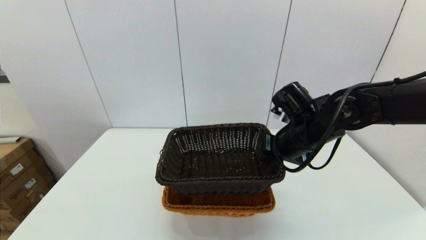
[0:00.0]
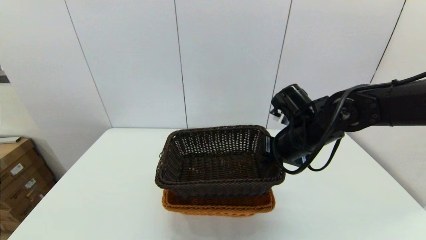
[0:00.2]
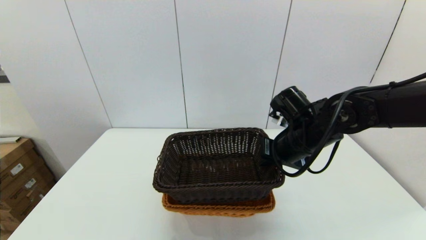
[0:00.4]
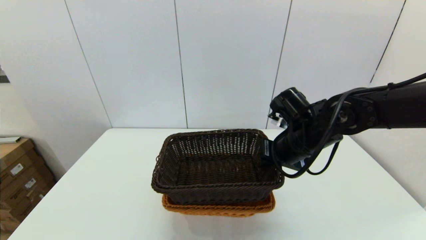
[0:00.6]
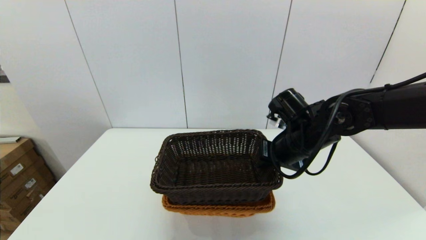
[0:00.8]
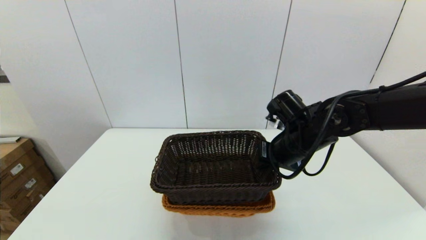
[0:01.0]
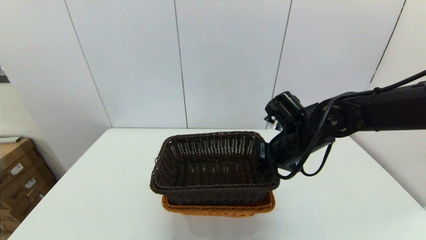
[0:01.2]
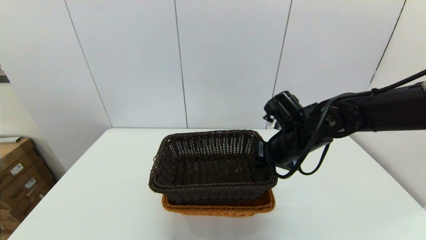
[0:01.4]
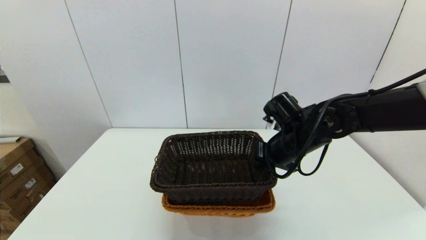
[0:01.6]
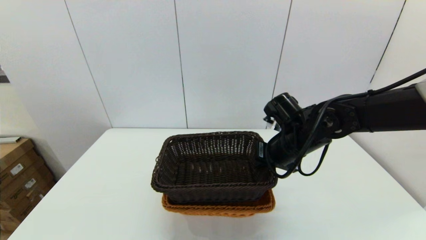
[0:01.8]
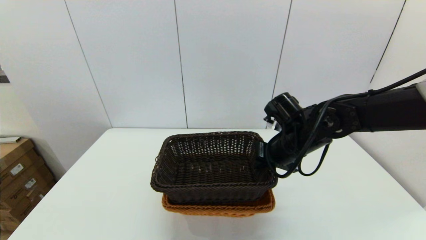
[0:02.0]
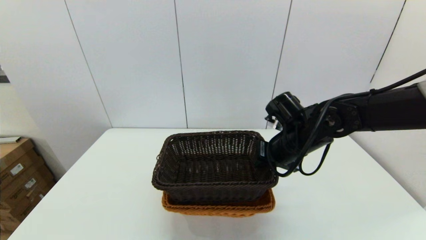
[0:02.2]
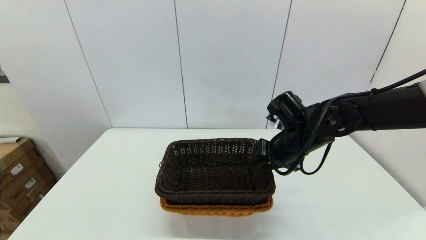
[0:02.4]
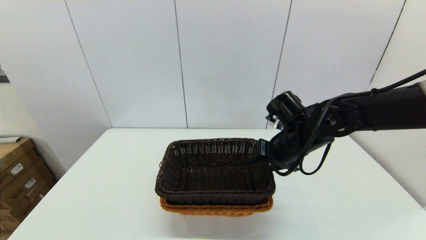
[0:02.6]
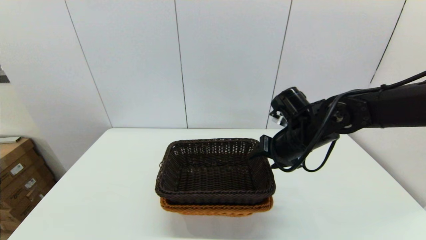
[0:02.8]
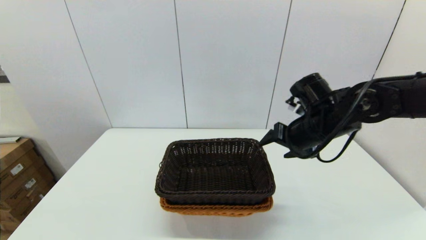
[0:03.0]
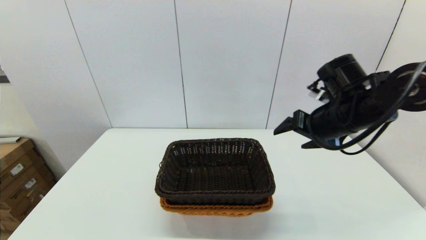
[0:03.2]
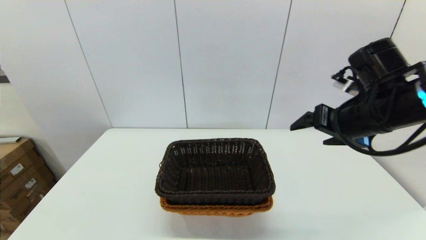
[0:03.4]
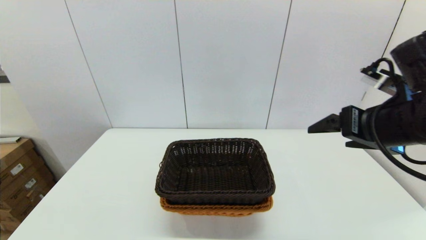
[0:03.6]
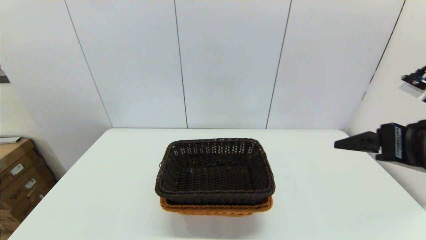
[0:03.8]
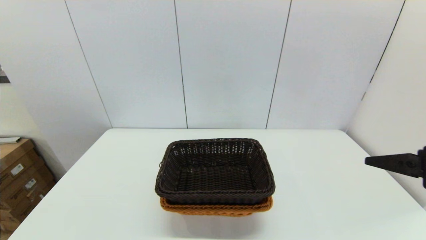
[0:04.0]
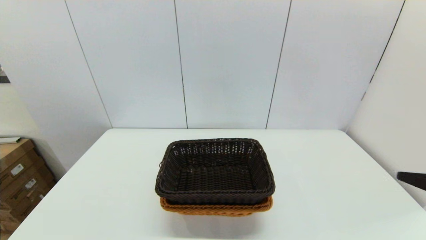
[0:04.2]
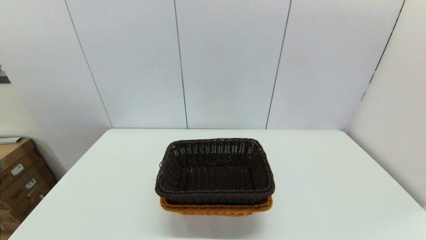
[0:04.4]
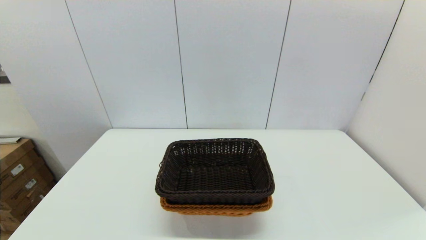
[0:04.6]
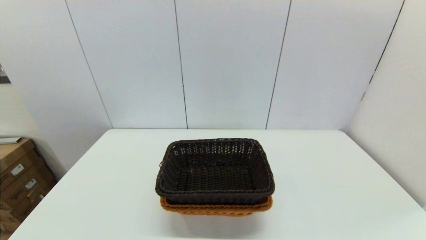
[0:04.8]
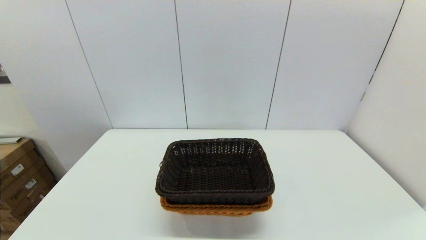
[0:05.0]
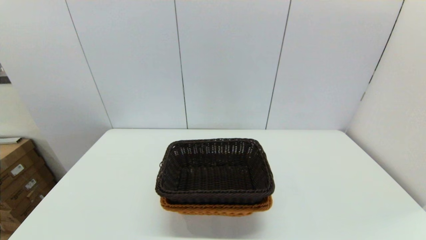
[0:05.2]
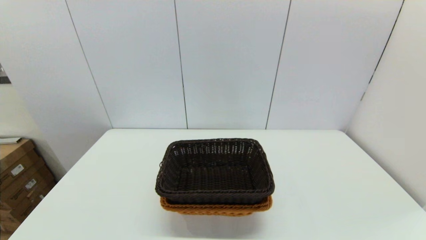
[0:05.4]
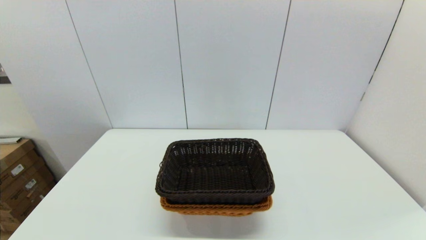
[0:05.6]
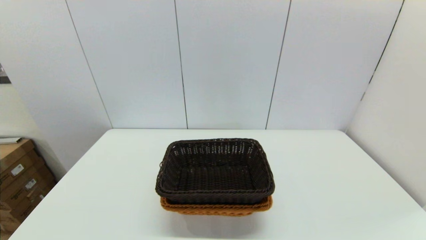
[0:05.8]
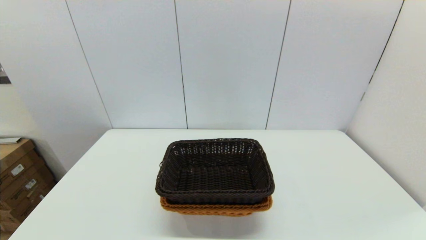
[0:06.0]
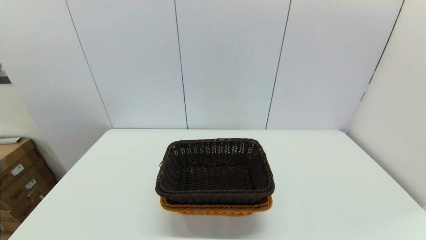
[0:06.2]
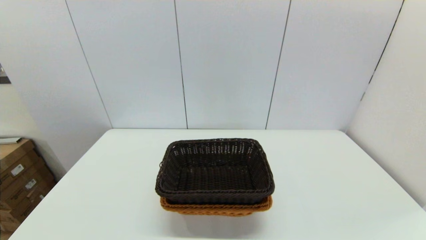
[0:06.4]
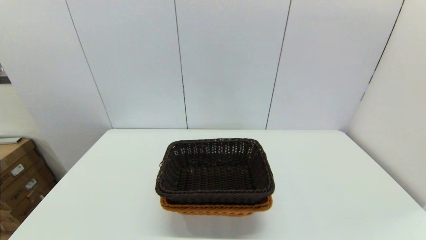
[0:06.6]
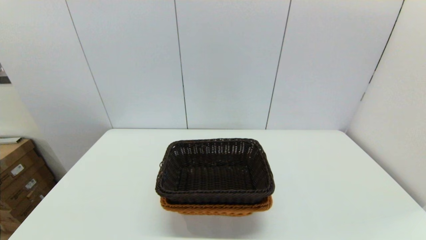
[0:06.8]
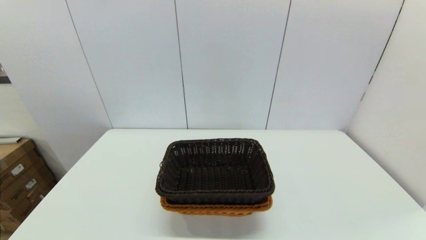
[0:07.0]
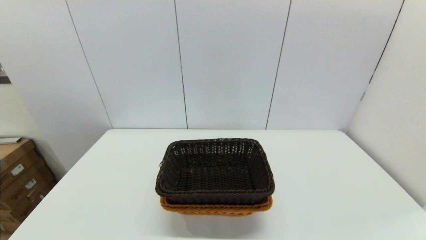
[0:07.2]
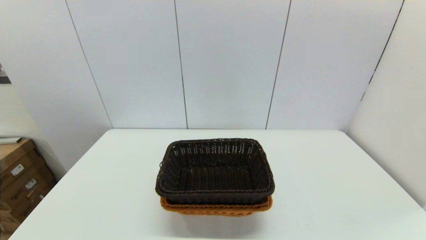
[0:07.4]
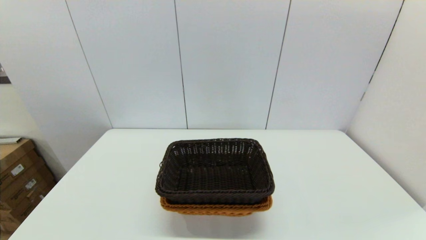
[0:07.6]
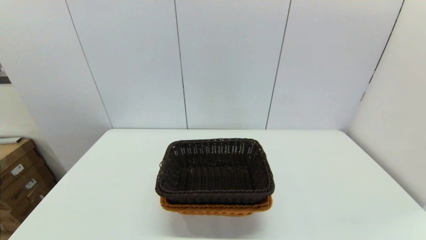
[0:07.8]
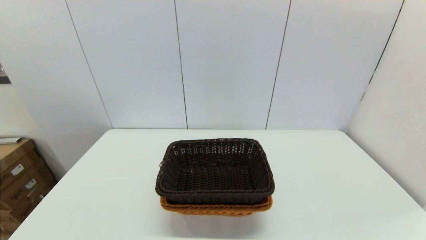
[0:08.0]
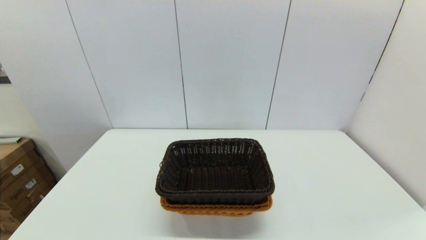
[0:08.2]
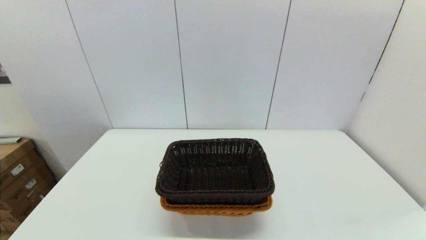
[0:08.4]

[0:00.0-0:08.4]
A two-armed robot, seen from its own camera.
Task of the whole recording: stack a basket on top of another basket.
Step, 0.0 to 3.2 s: Place the dark basket into the light color basket with the right gripper.
0.0 to 1.4 s: The grippers move only a little.
1.4 to 2.8 s: The right gripper opens.
2.8 to 4.2 s: The right gripper travels backward and to the right by approximately 30 cm.

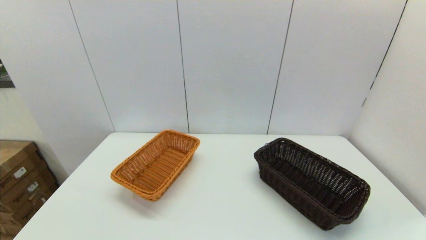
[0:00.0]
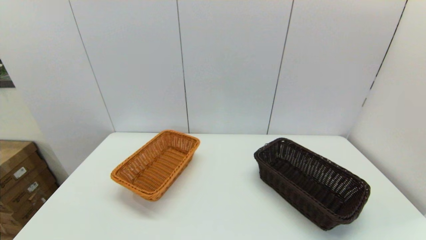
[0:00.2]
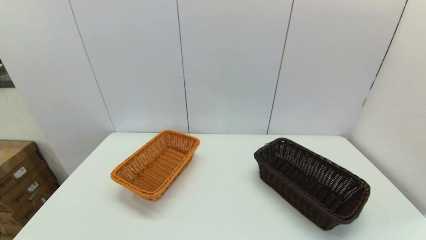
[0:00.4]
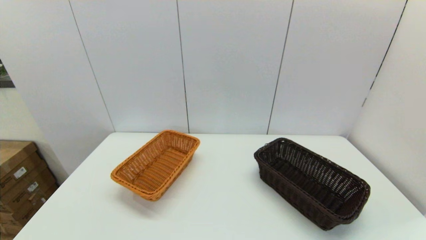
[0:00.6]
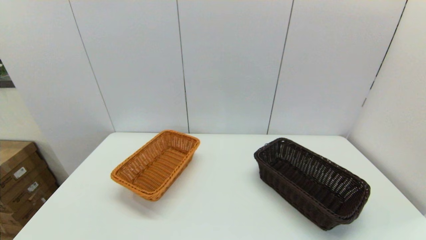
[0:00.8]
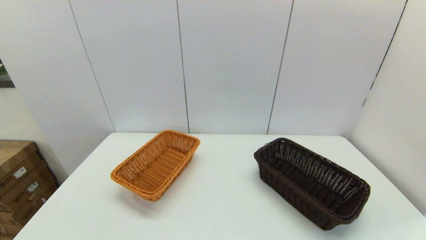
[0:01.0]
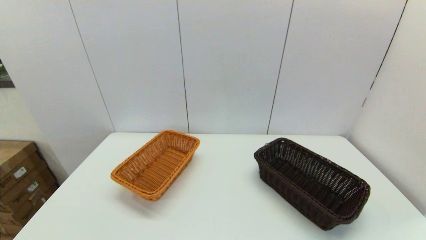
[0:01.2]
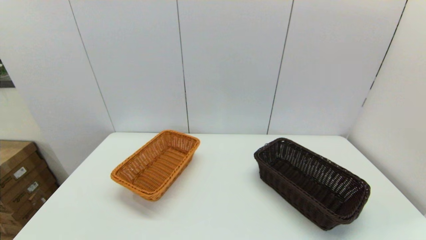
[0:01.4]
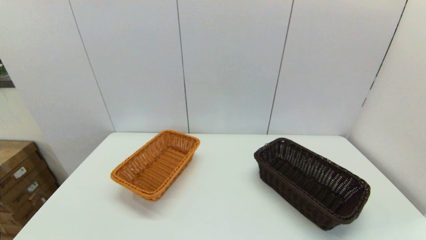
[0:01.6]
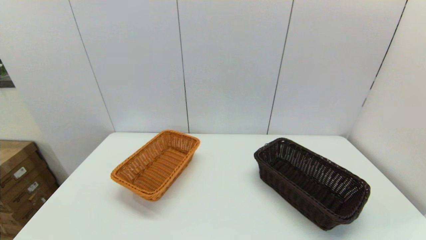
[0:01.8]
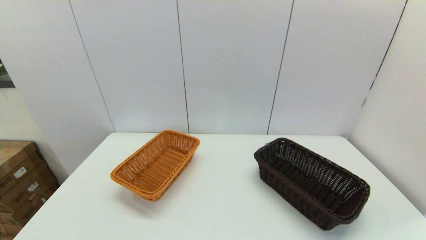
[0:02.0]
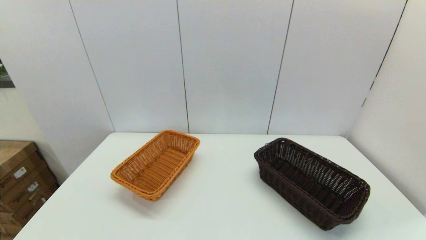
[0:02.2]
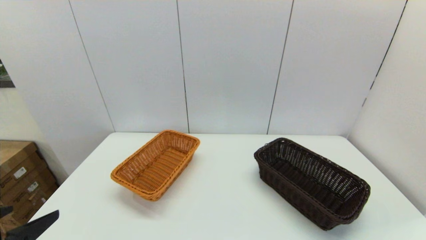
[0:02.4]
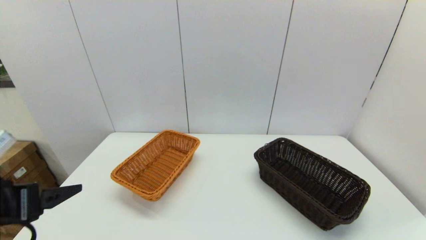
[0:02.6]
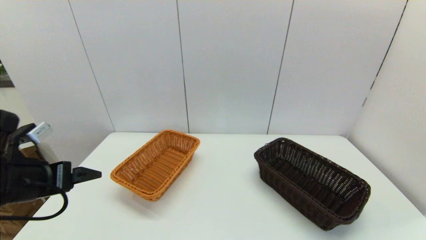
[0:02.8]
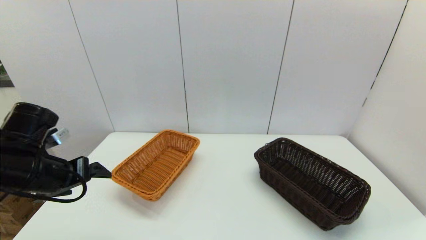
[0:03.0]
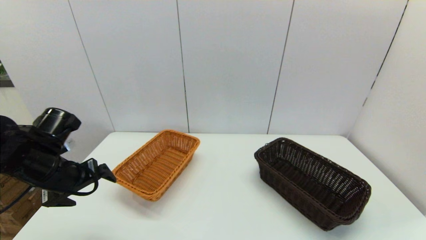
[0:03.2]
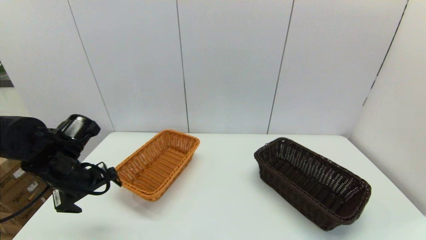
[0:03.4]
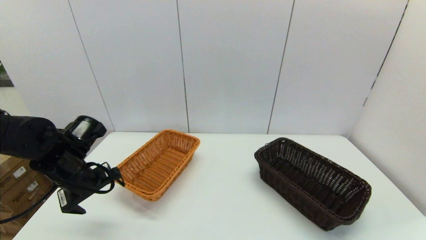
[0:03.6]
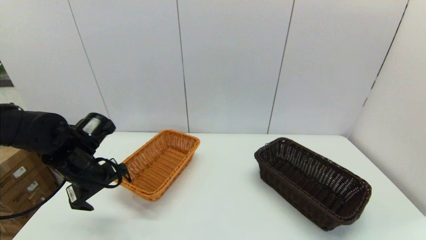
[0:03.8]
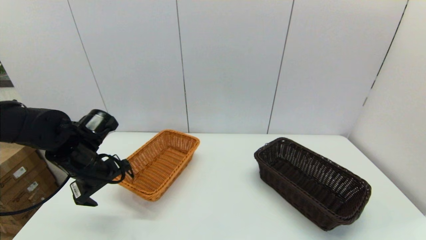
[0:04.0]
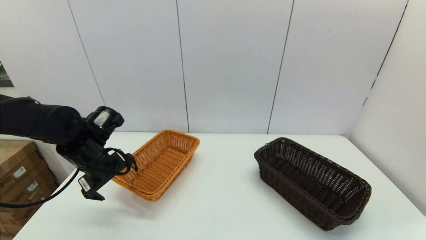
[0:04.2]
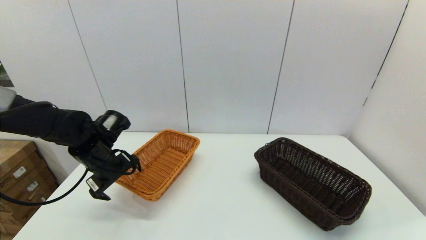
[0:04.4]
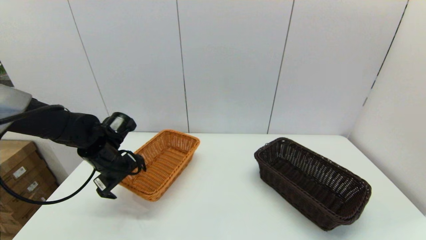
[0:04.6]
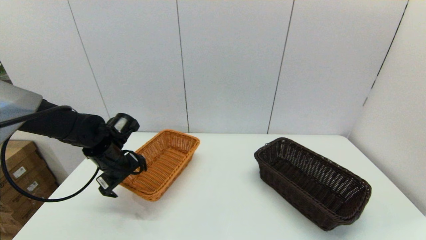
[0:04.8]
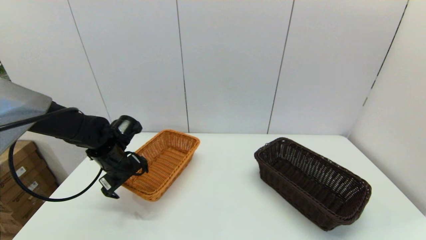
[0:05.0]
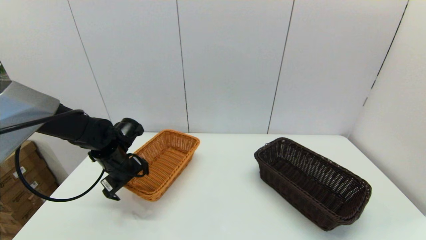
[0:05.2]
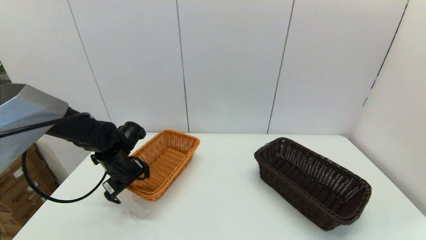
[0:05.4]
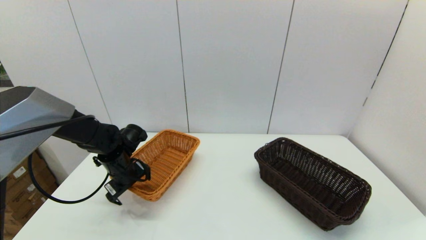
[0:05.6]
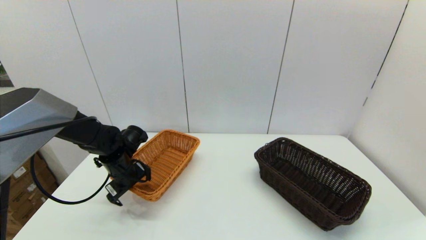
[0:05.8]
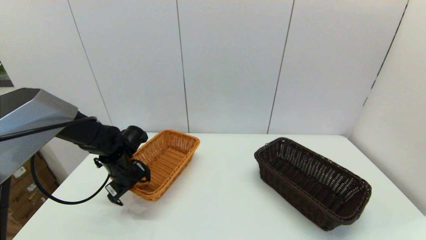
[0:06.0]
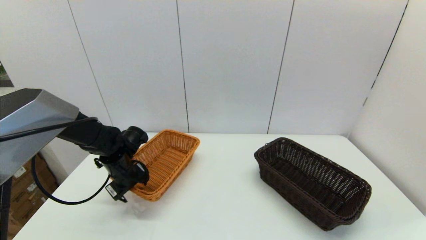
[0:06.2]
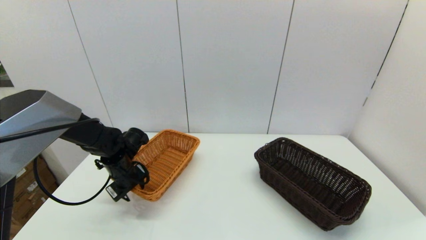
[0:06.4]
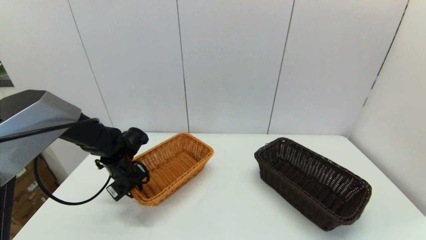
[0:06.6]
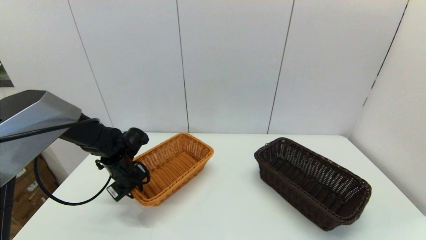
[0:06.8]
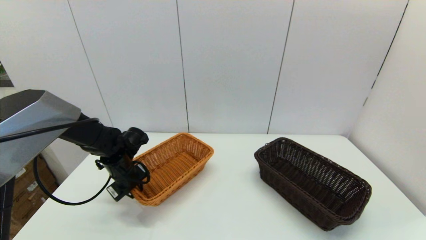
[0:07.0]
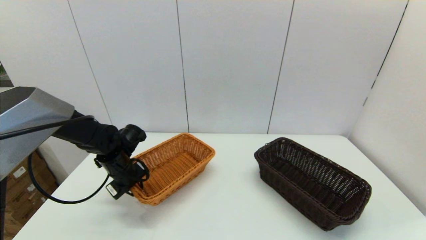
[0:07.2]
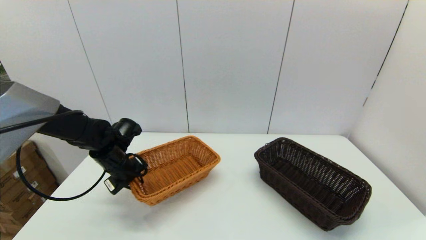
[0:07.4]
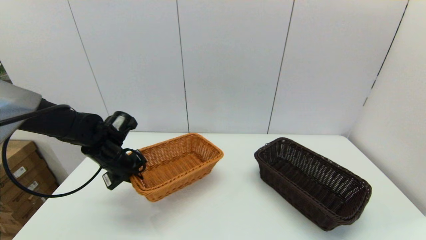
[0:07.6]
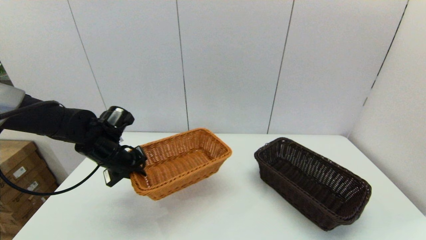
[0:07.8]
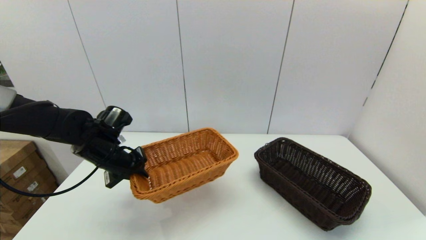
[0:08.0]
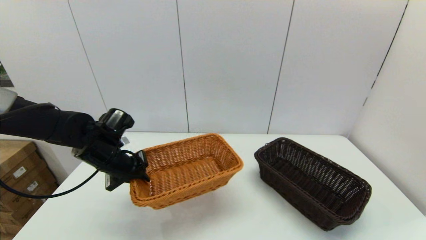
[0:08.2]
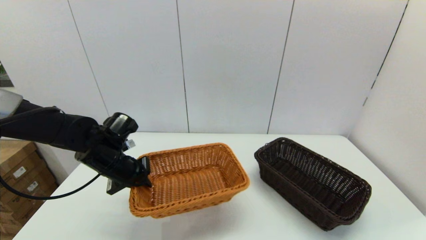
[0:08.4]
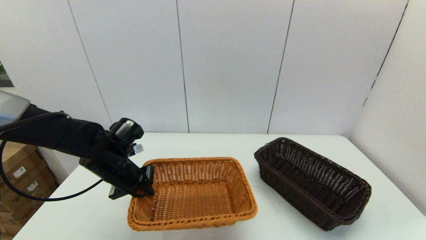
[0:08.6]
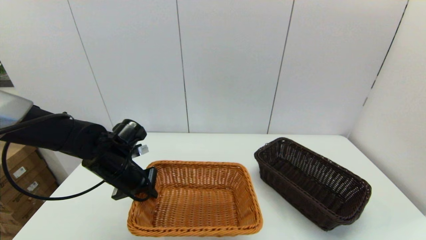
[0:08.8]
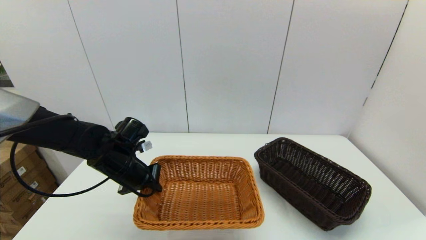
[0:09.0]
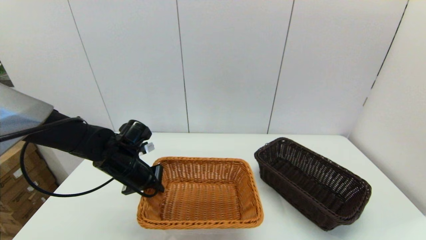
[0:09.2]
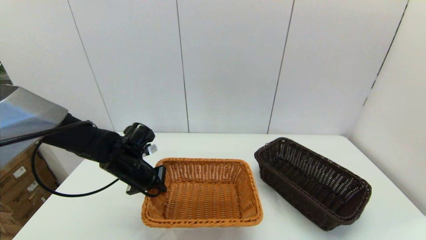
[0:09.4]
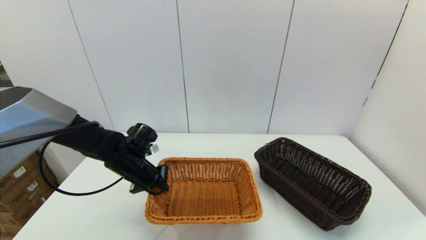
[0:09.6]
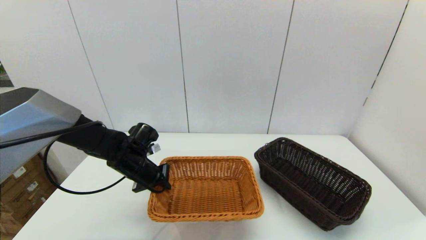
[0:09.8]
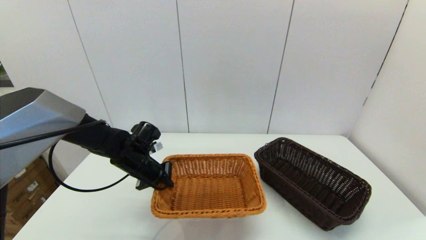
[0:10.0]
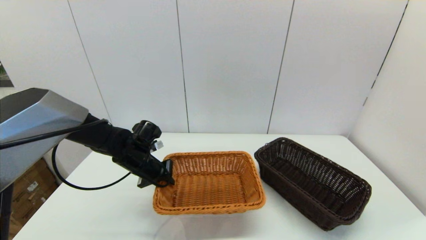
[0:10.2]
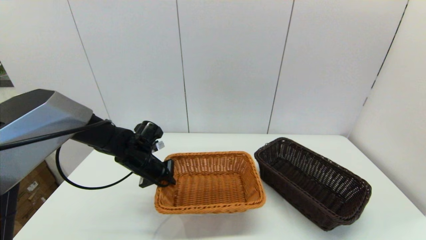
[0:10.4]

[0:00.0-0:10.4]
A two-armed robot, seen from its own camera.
Task of the whole recording: stack a basket on top of another basket.
Step, 2.4 to 6.6 s: Grasp the light basket with the left gripper.
0.0 to 1.4 s: Both grippers stay put.
1.4 to 3.0 s: The left gripper shifts about 25 cm forward.
3.0 to 4.4 s: The left gripper heads forward and downward, covering approximately 10 cm.
4.4 to 6.0 s: The left gripper moves downward, about 5 cm.
6.0 to 7.4 s: The left gripper closes its fingers.
7.4 to 9.0 s: The left gripper moves some 5 cm.
9.0 to 10.4 s: The left gripper ends up some 5 cm from where it was.
